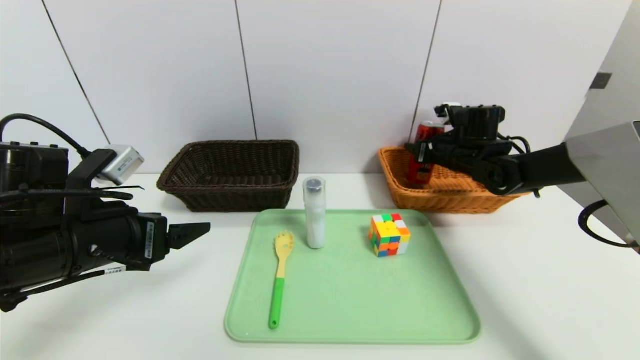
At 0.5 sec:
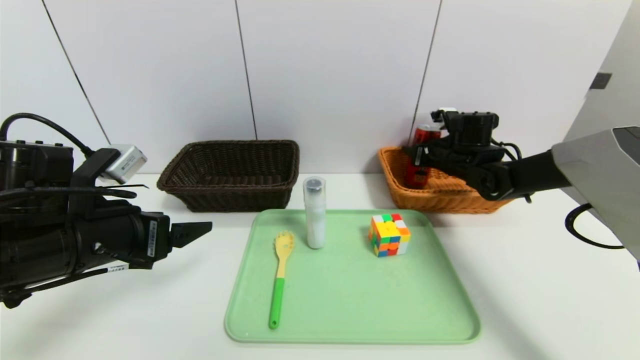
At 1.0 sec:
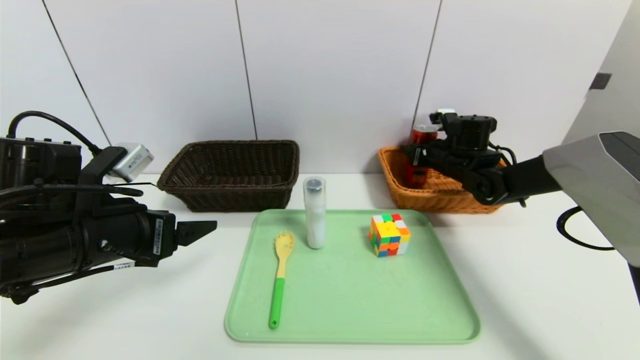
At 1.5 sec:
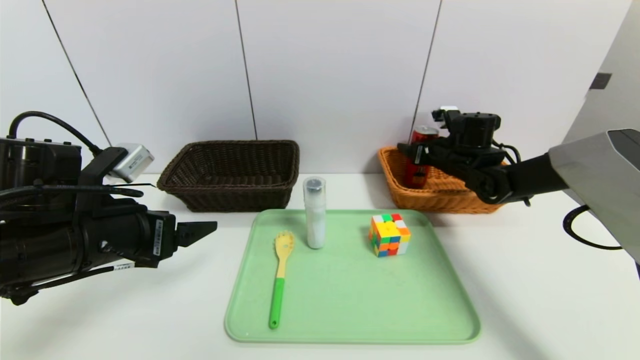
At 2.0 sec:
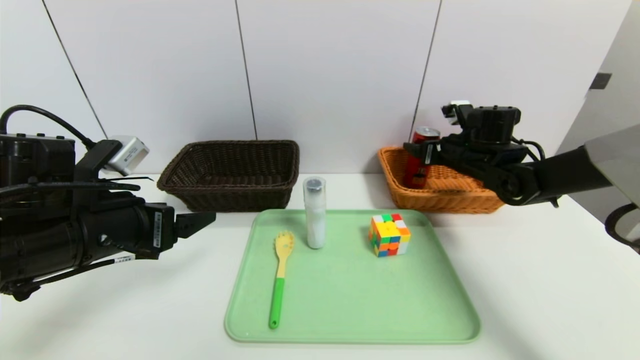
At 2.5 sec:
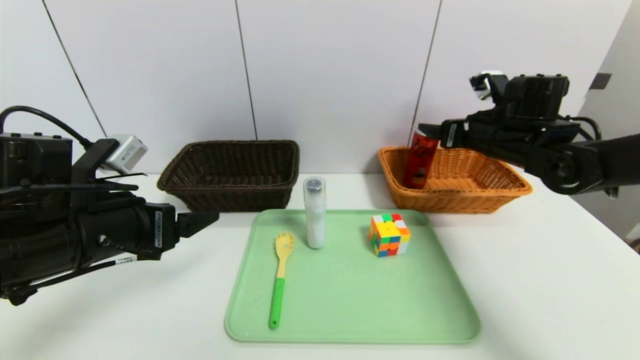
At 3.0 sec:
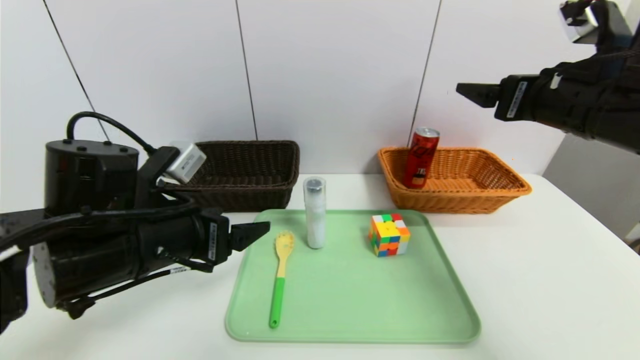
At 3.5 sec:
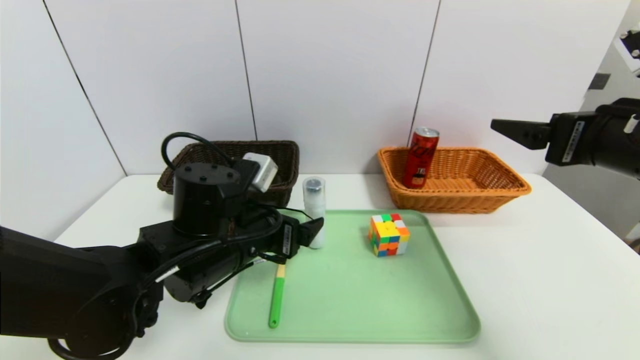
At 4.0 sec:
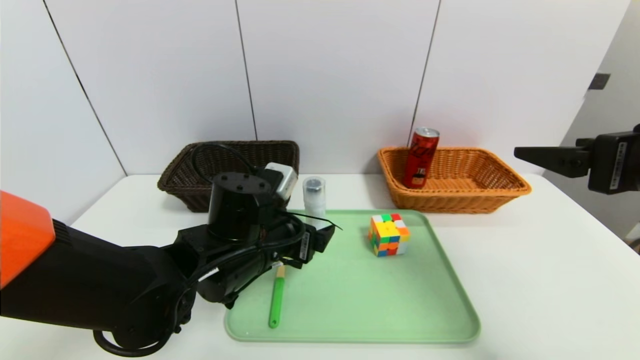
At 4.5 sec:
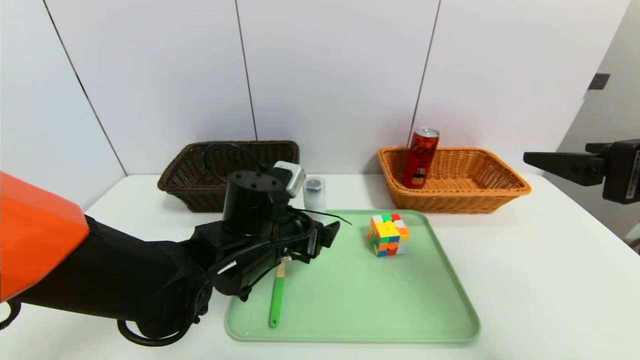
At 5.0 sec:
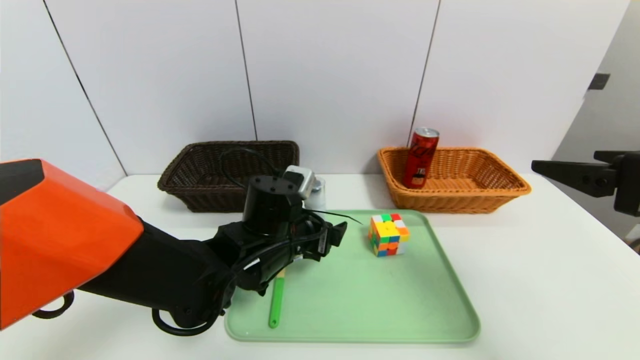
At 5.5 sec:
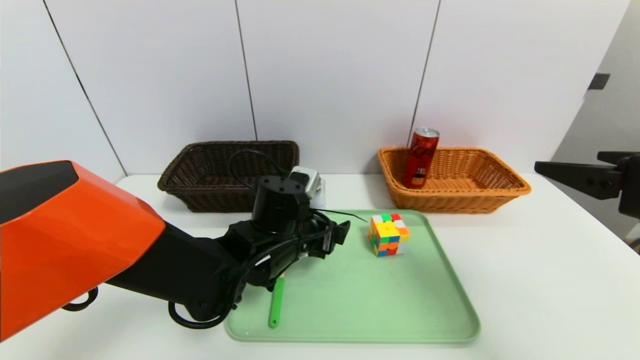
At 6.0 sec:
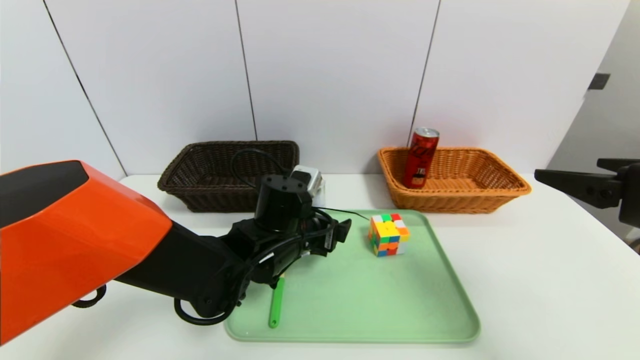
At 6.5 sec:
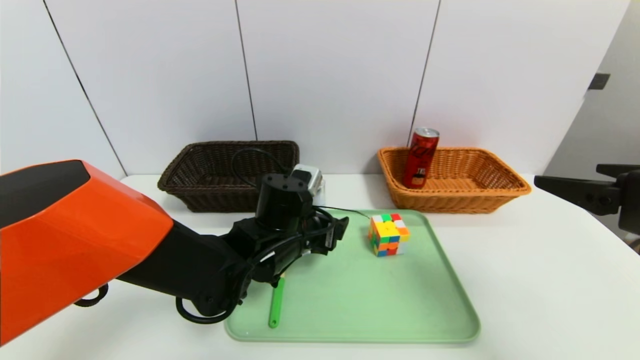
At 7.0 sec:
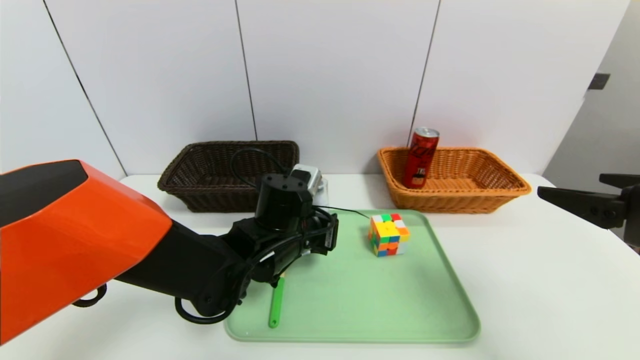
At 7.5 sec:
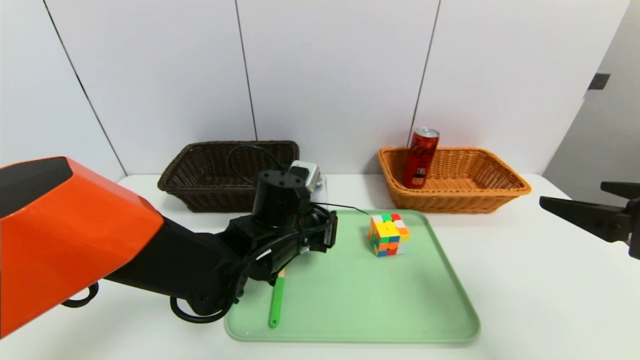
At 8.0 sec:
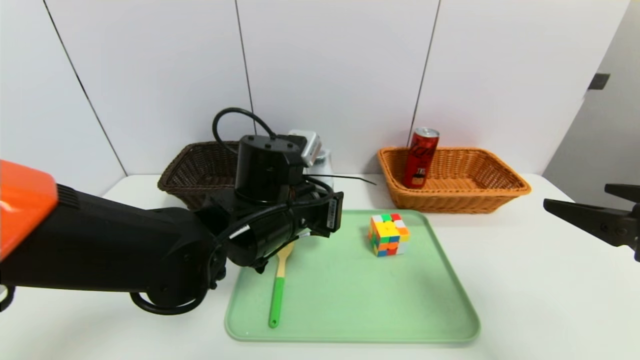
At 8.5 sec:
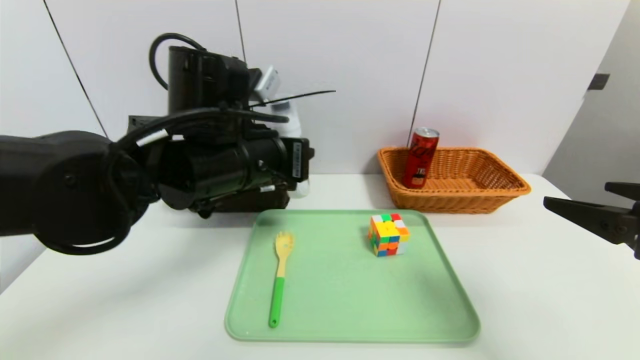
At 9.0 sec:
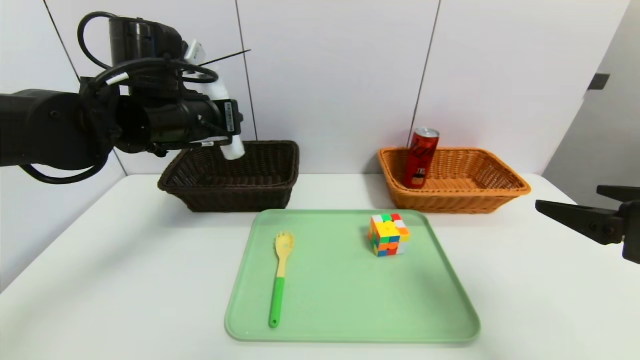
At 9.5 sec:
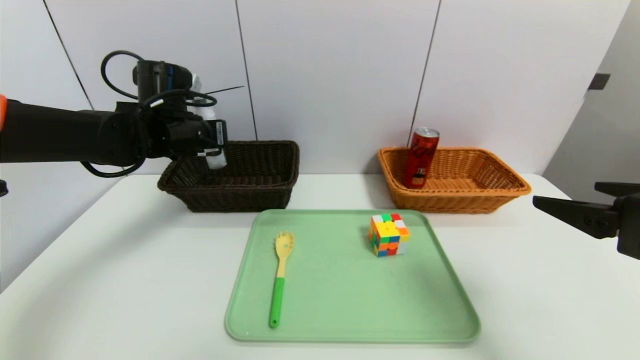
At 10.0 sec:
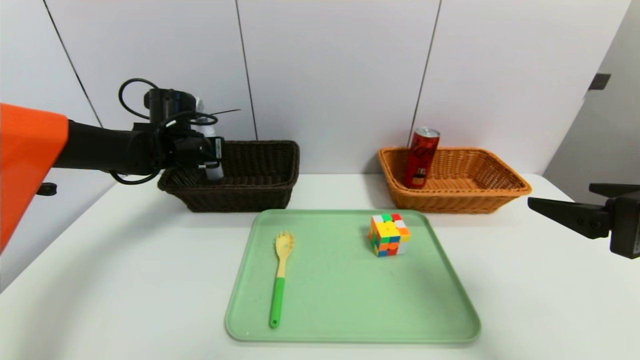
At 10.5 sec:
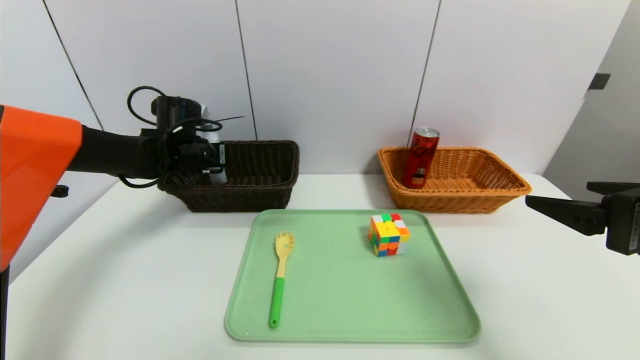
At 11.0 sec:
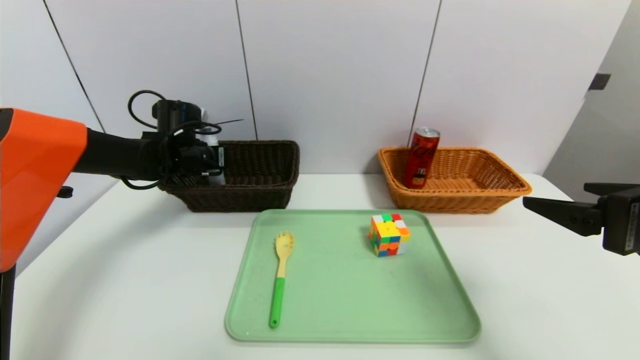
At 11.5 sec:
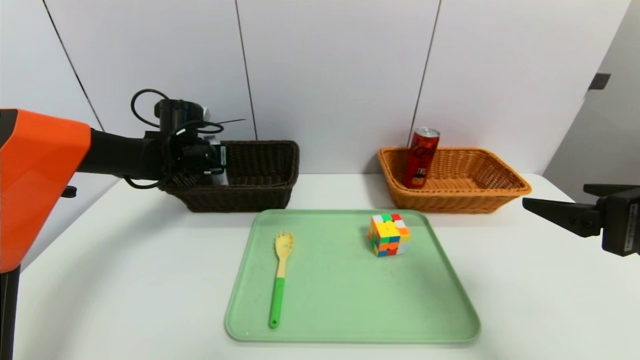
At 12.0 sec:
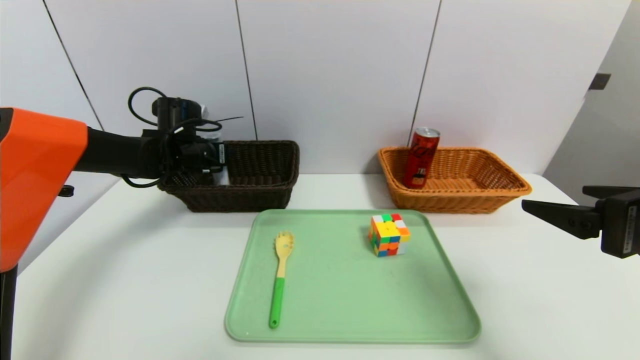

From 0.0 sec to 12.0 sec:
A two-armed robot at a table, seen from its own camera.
Task of the whole recording: place the food in the right basket with the right gripper, and place the non food items in the left basket with the left gripper.
Step, from 0.0 sec to 2.5 sec: Grasp the coke and put it in the right basket.
From 0.0 sec to 2.0 sec: The right gripper opens up.
From 2.0 sec to 4.0 sec: The left gripper is displaced to the right by approximately 15 cm. The right gripper moves backward and upward, roughly 30 cm.
From 4.0 sec to 6.0 sec: The left gripper shifts by approximately 5 cm.
From 6.0 sec to 8.0 sec: The left gripper goes about 5 cm upward, and closes.
From 8.0 sec to 10.0 sec: The left gripper heads to the left and forward, covering roughly 25 cm.
From 10.0 sec to 12.0 sec: The left gripper opens up.

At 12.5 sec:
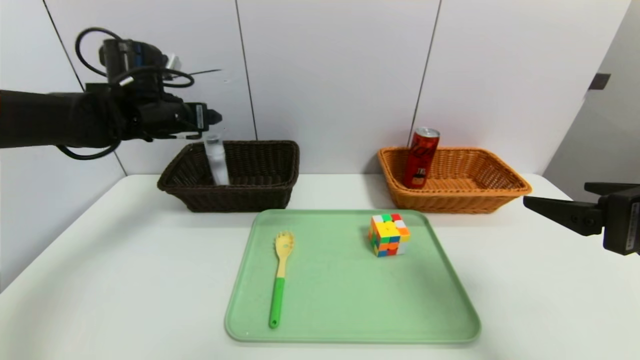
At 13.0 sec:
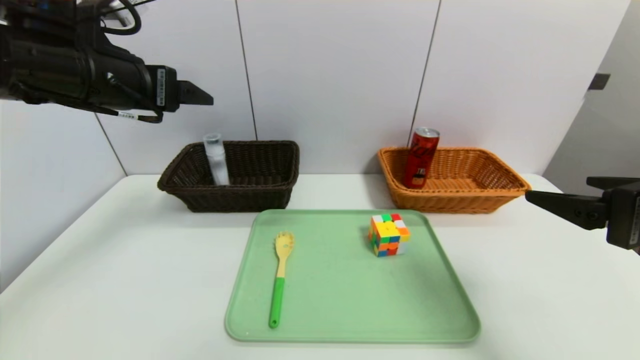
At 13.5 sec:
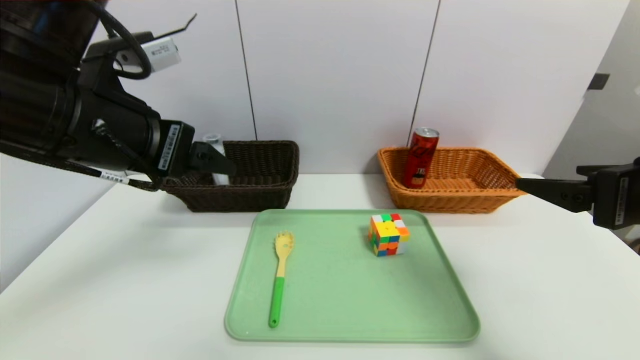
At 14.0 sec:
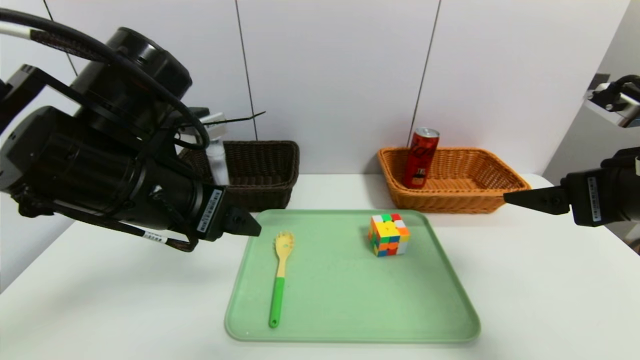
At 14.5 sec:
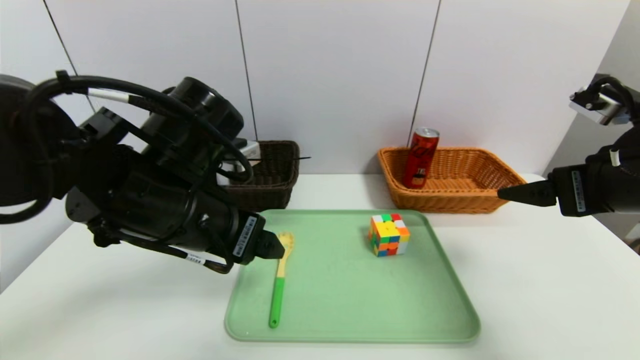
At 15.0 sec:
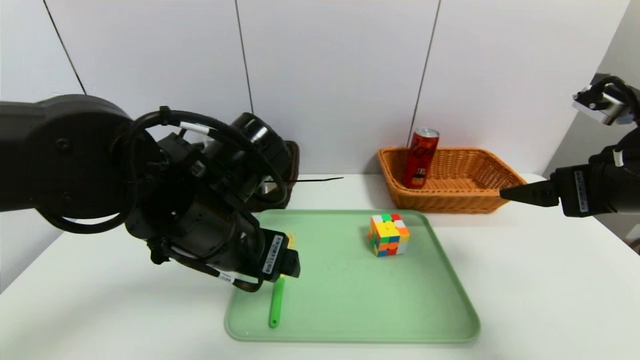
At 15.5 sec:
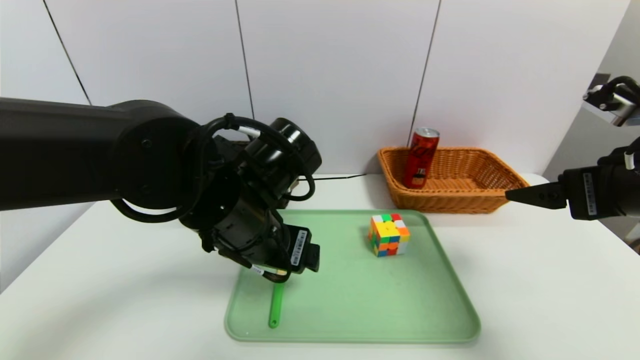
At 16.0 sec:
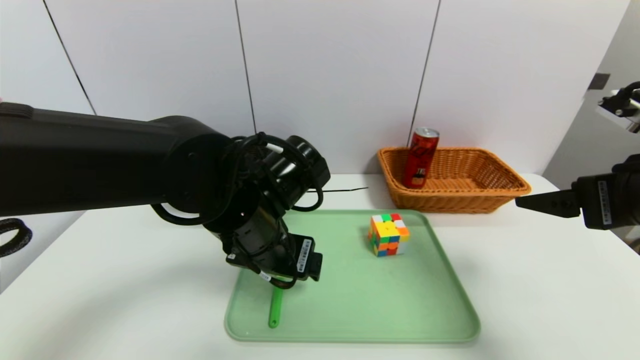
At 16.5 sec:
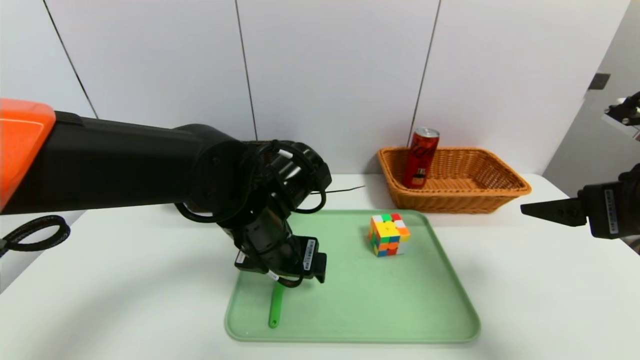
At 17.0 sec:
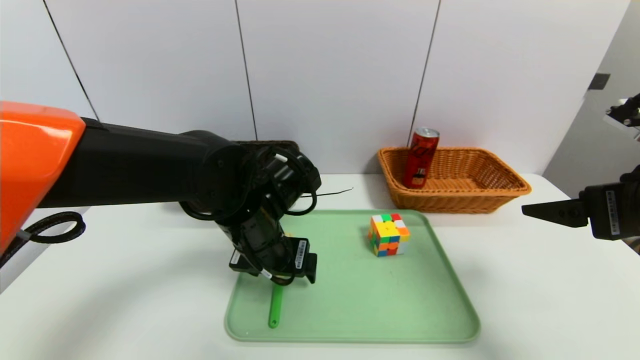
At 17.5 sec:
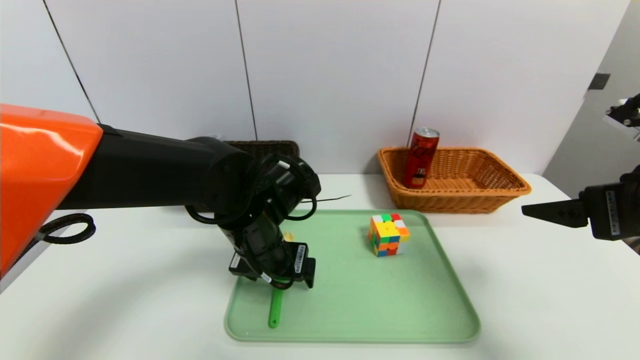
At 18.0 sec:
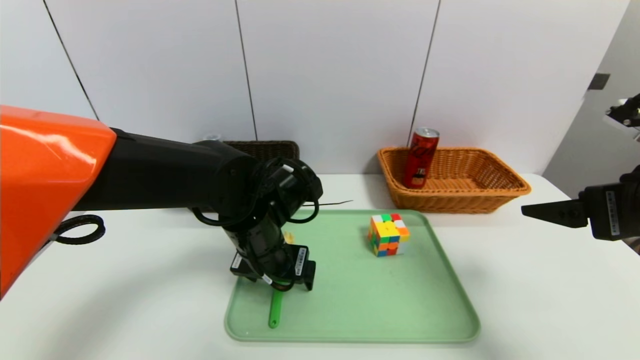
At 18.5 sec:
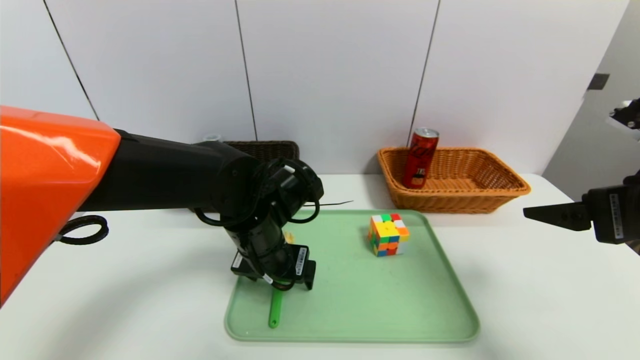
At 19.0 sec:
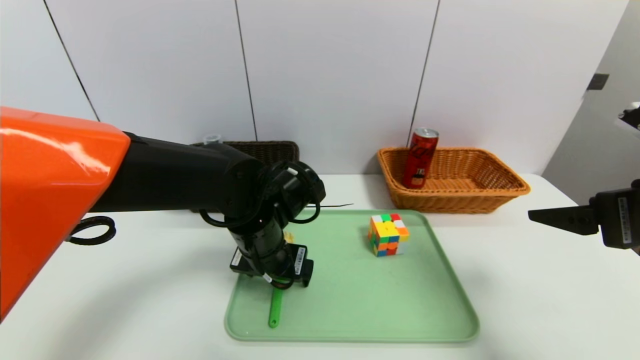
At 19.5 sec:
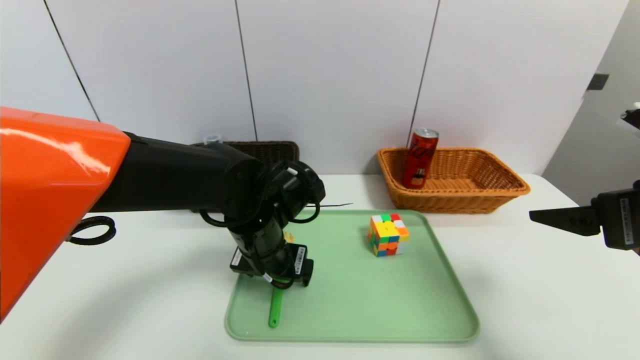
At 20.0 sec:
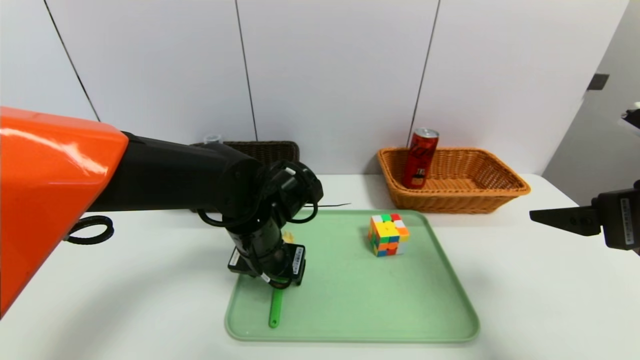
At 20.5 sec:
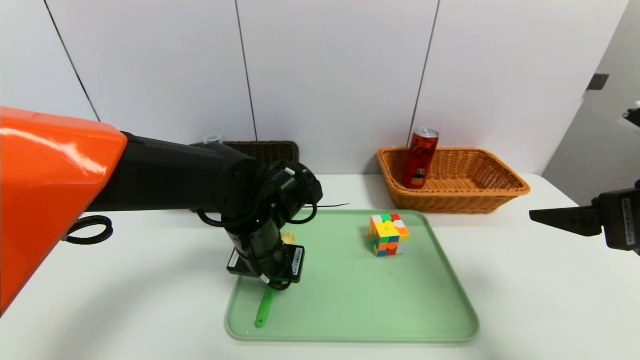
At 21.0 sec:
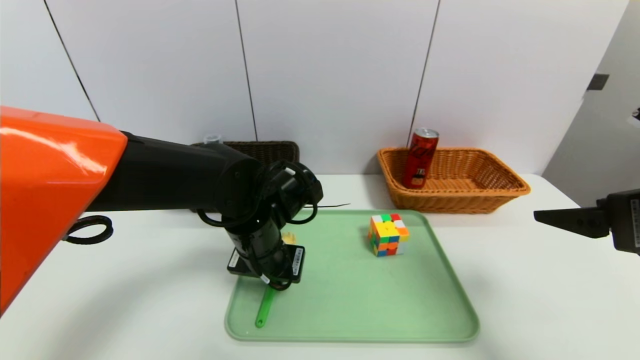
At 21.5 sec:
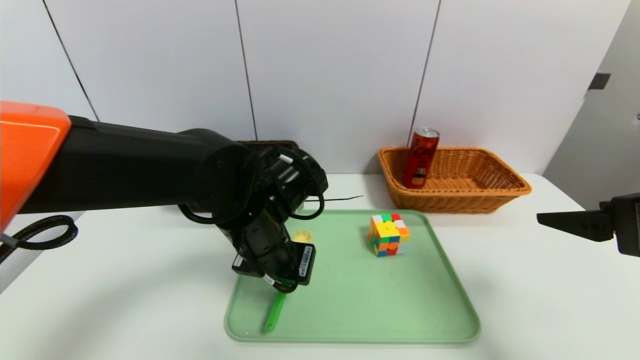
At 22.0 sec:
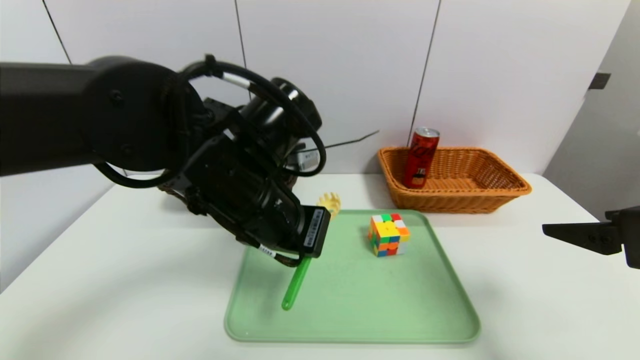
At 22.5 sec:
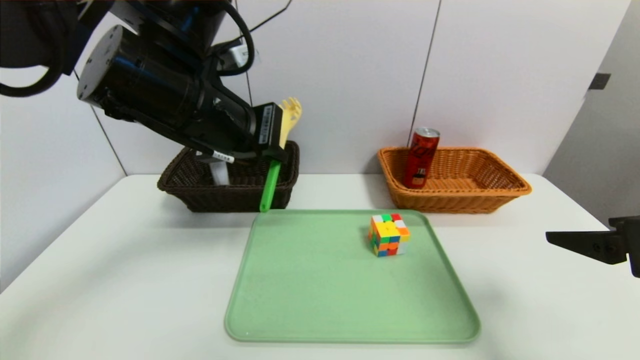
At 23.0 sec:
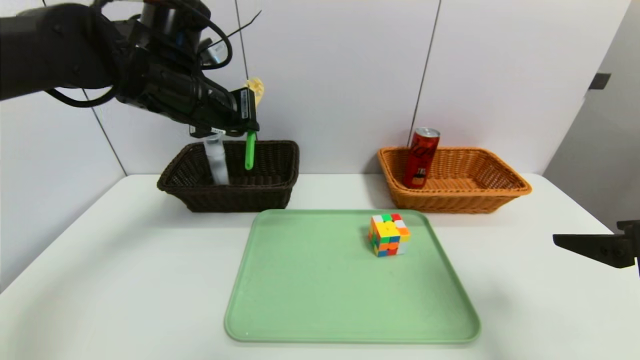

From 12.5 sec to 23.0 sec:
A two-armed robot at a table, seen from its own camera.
Task of the whole recording: place the food in the right basket with the right gripper, and place the non food items in the left basket with the left gripper.
From 12.5 sec to 14.5 sec: The left gripper heads backward and to the right, covering about 20 cm. Meanwhile the right gripper moves forward, about 5 cm.
From 14.5 sec to 16.5 sec: The left gripper is displaced to the right and downward by roughly 10 cm.
From 16.5 sec to 19.0 sec: The grippers make only small movements.
From 19.0 sec to 21.0 sec: The left gripper closes up.
From 21.0 sec to 23.0 sec: The left gripper goes approximately 20 cm upward and to the left.
